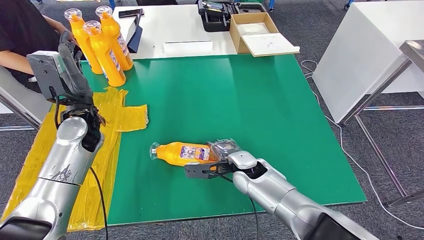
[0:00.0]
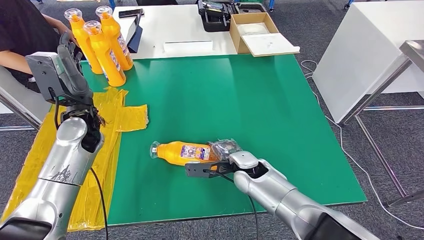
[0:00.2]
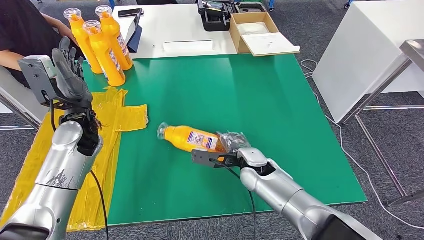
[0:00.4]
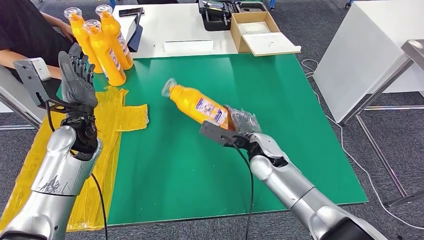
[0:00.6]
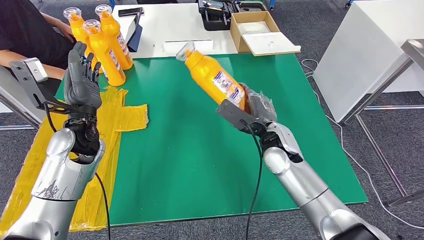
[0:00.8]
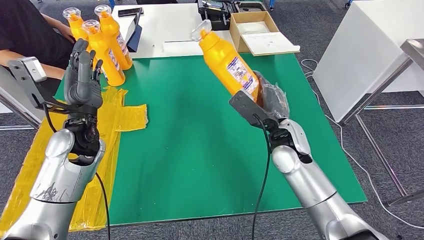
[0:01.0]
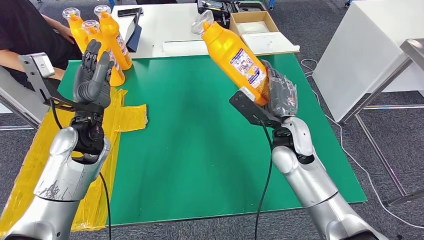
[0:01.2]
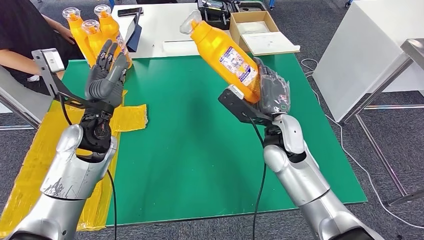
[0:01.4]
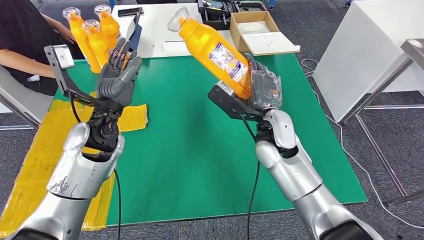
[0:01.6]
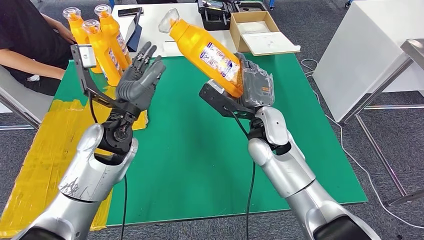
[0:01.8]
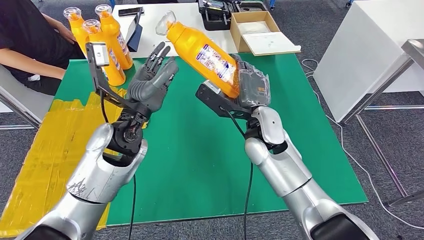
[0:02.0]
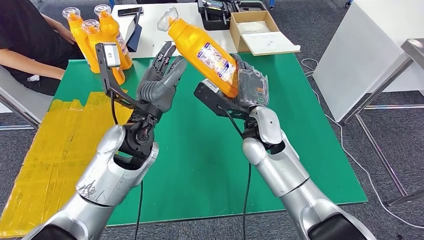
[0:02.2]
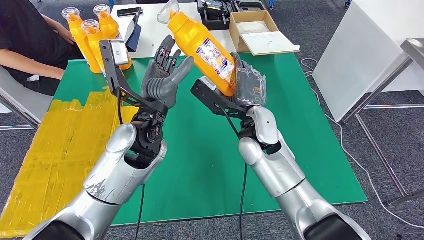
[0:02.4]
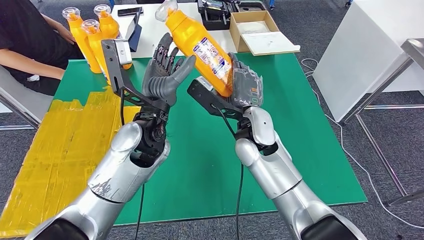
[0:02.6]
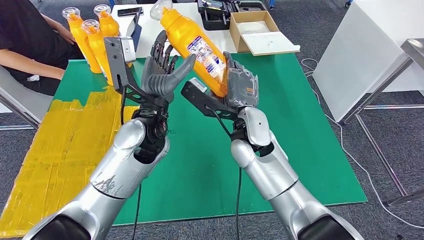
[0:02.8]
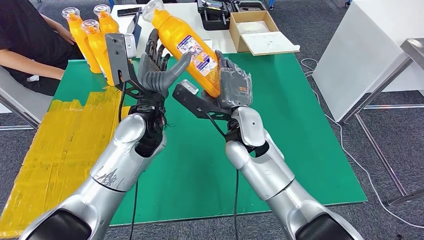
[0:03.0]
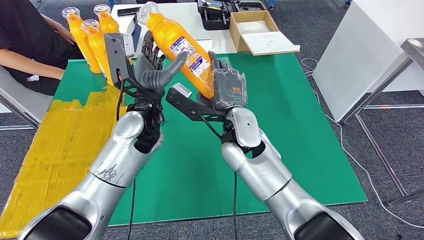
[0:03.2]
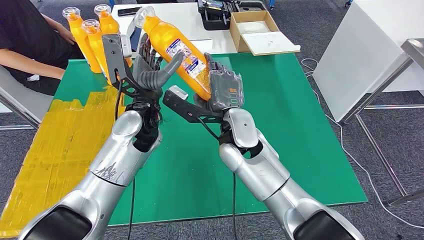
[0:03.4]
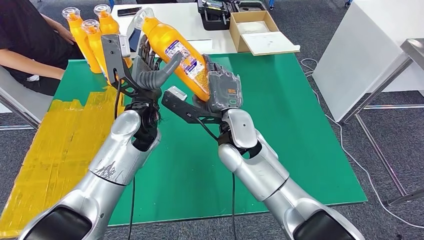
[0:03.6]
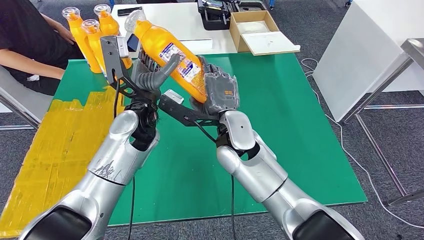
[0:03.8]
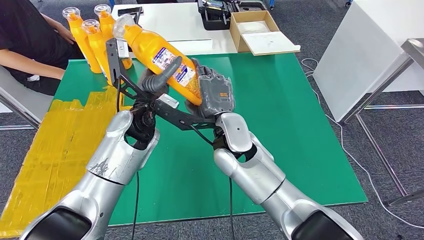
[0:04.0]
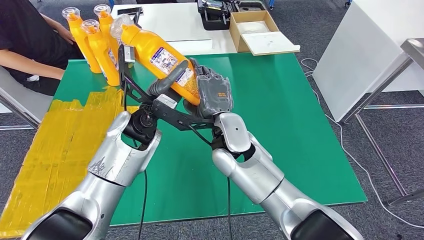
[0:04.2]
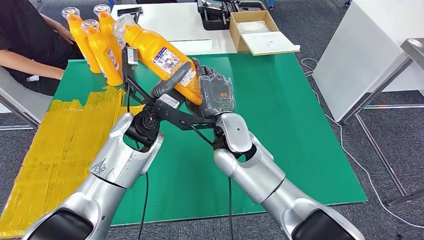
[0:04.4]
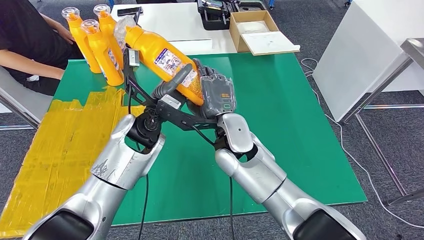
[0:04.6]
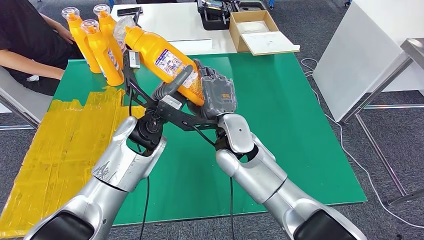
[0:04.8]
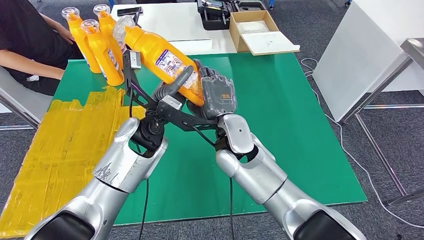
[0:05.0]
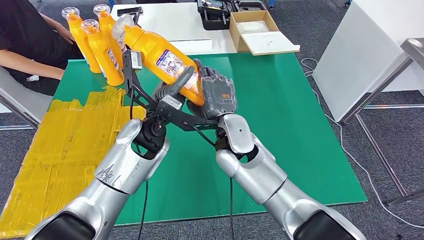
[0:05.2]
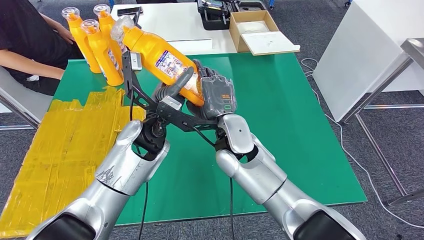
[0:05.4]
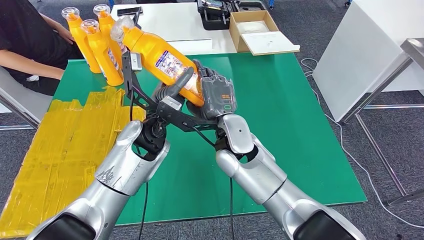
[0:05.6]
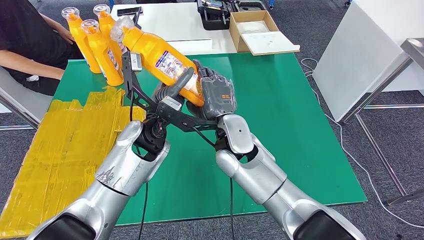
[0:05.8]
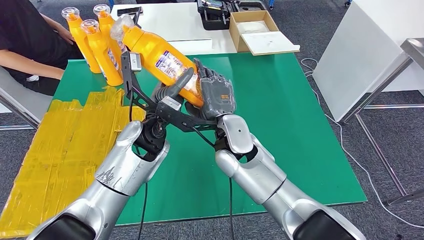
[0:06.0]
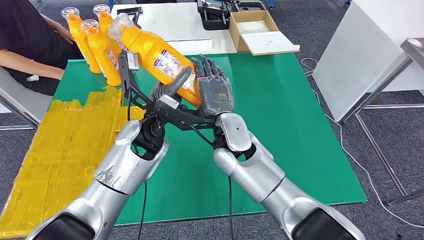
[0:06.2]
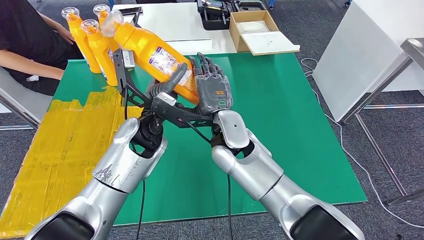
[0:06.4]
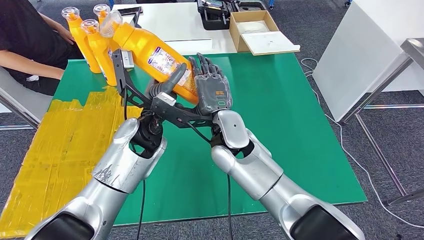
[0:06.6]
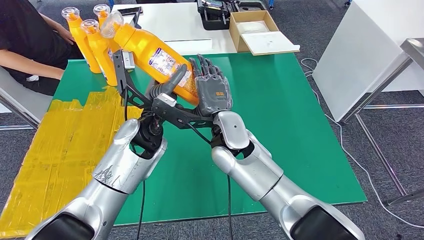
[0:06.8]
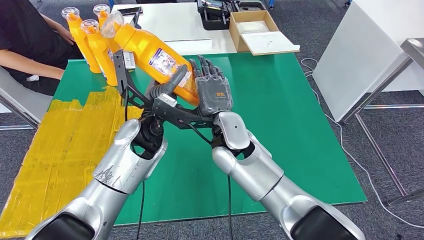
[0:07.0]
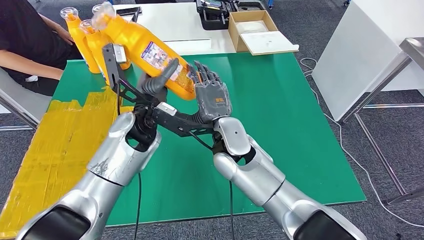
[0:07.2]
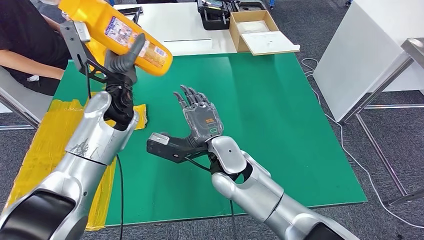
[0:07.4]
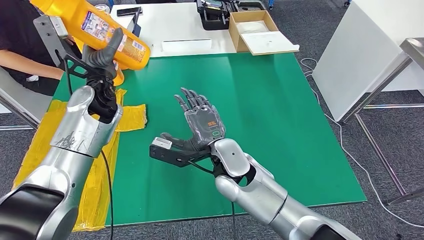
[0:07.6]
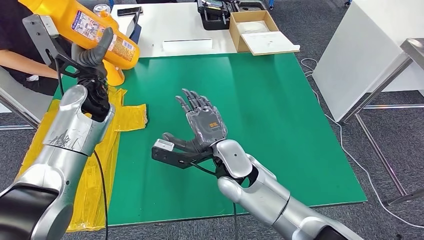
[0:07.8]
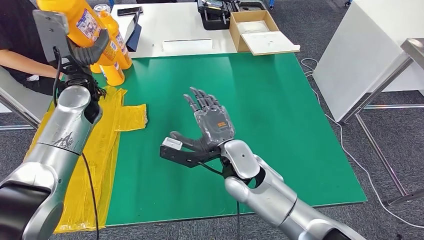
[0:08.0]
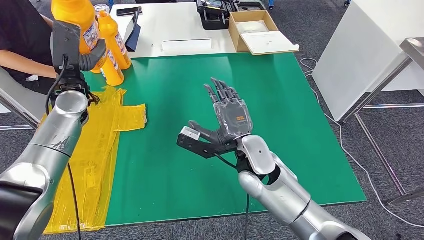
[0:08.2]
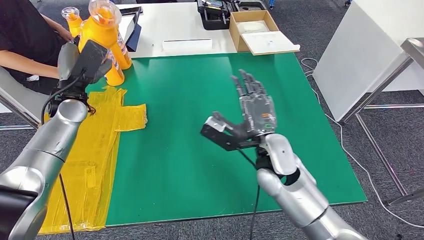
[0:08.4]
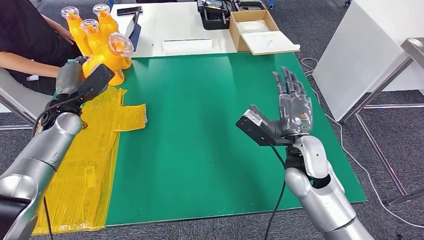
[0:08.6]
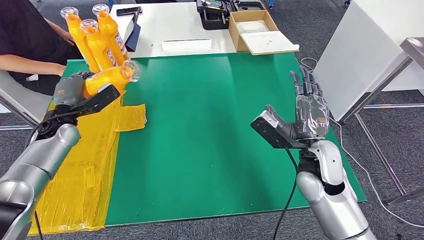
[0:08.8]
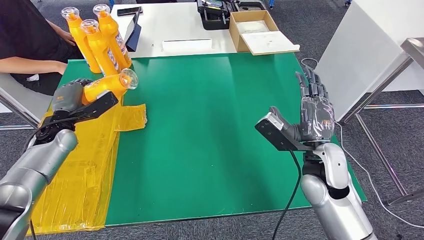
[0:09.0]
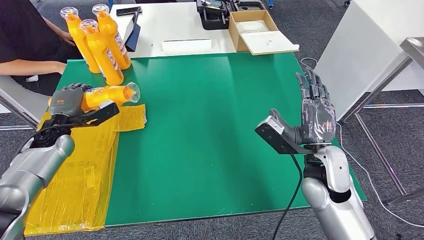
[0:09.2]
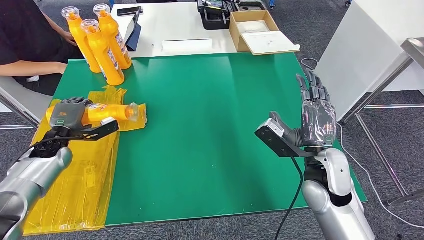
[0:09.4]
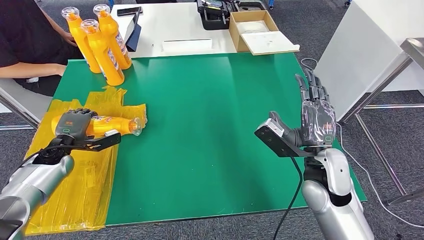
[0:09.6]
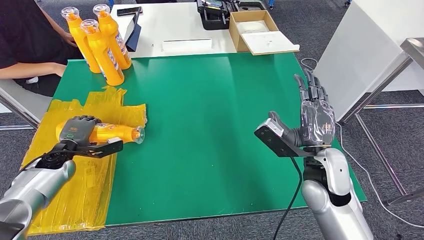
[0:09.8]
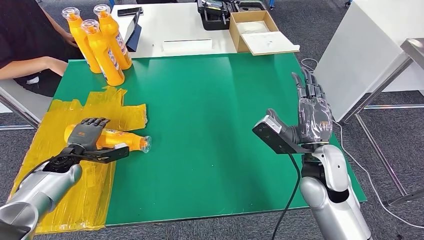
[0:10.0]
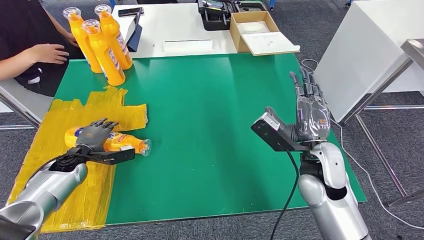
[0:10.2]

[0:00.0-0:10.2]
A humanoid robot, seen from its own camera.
Step, 0:00.0 to 0:03.0: Pick up the fast-moving consumer goods bottle from the table.
0:04.4 to 0:05.8: There are only small adjustments of the hands.
0:05.8 to 0:07.2: The hands move only a little.
0:08.8 to 0:10.2: The left hand goes approximately 10 cm downward.

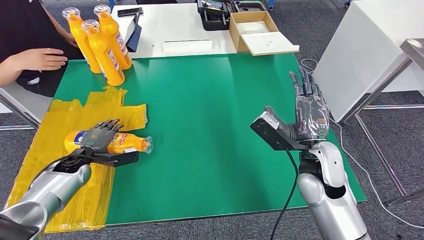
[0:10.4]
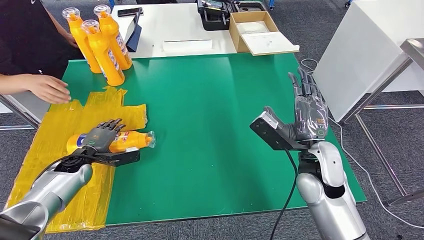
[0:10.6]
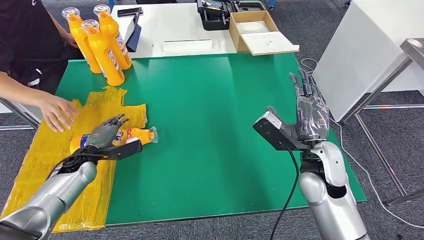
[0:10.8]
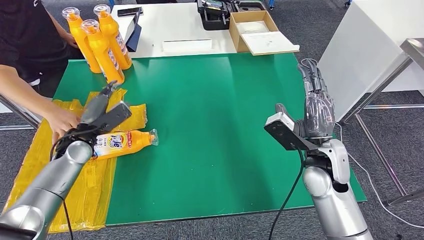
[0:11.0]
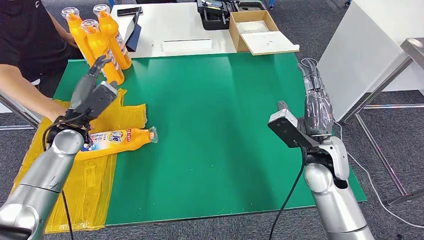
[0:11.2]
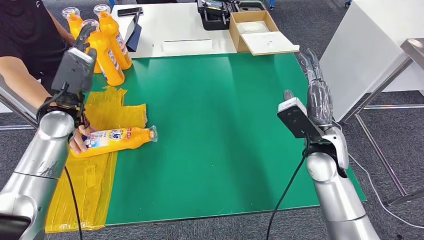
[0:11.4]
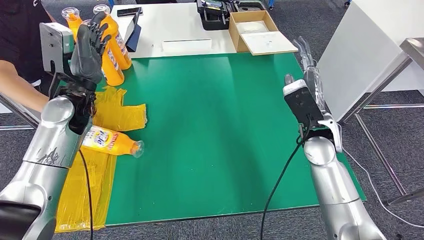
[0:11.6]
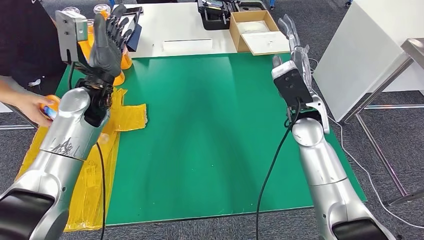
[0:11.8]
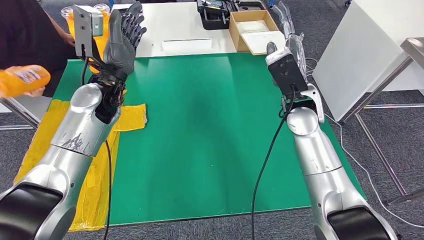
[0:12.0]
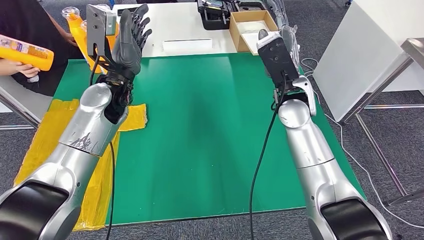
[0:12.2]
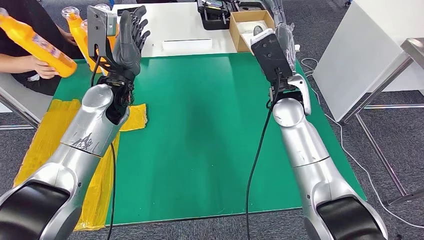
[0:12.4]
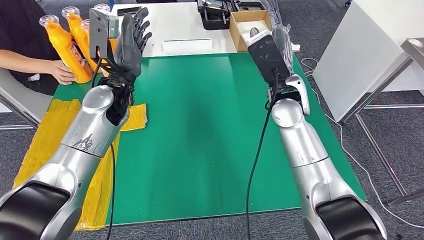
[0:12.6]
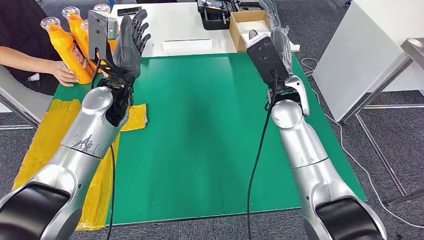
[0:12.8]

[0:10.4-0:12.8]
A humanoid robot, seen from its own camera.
Step, 0:10.4 to 0:12.6: Flip the fast-moving consumer goods bottle to the front side.
